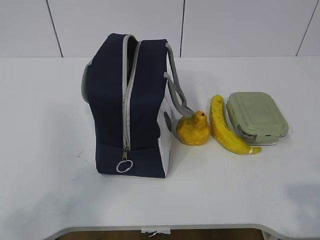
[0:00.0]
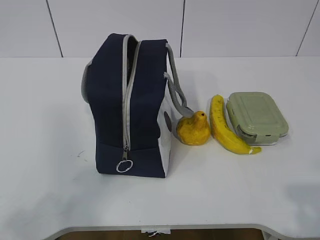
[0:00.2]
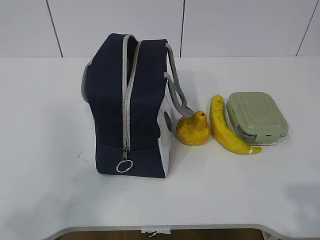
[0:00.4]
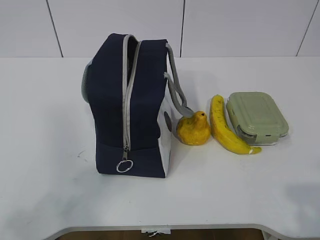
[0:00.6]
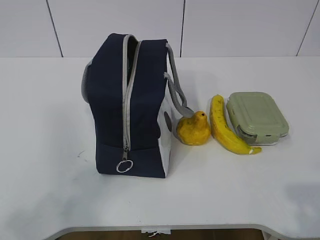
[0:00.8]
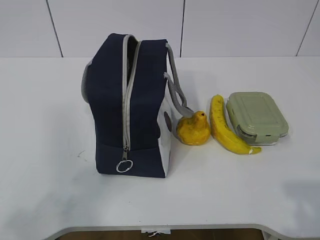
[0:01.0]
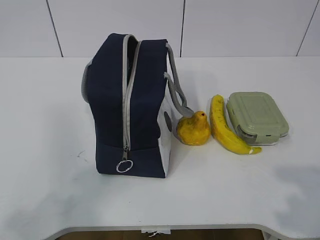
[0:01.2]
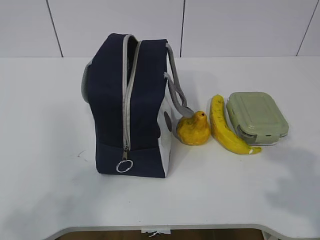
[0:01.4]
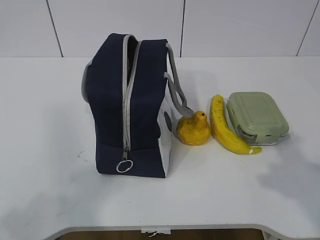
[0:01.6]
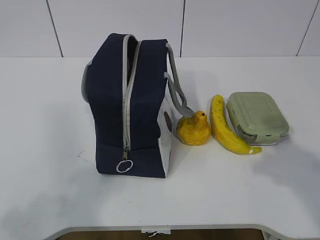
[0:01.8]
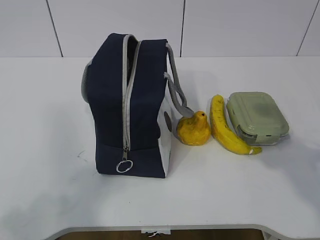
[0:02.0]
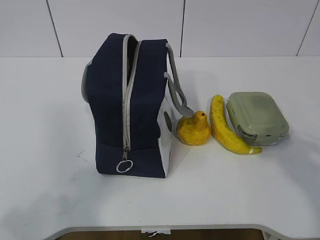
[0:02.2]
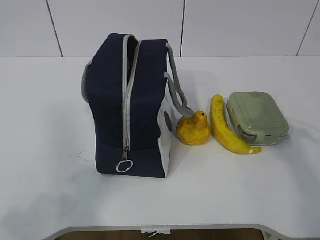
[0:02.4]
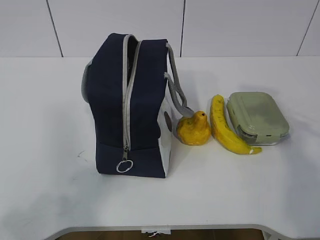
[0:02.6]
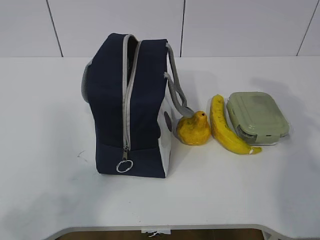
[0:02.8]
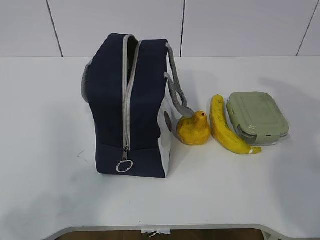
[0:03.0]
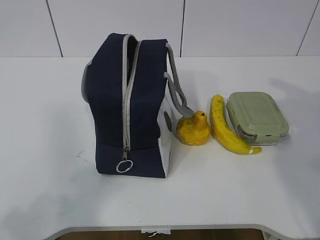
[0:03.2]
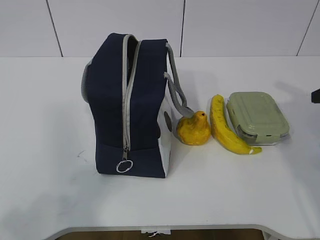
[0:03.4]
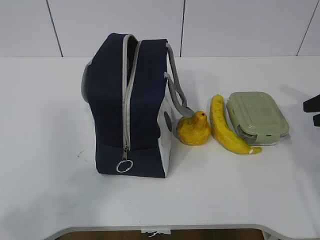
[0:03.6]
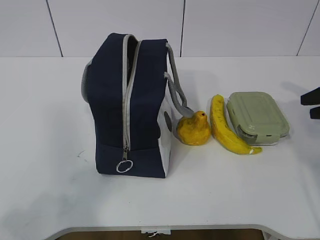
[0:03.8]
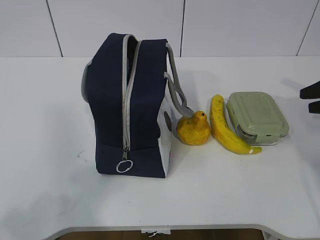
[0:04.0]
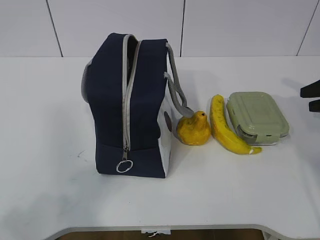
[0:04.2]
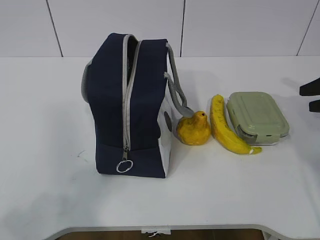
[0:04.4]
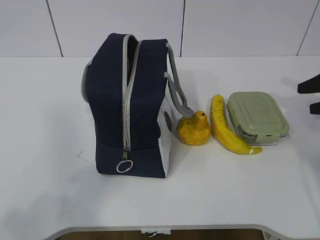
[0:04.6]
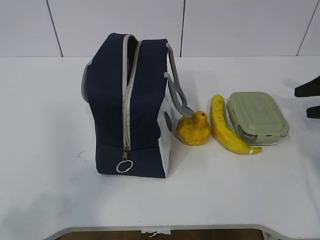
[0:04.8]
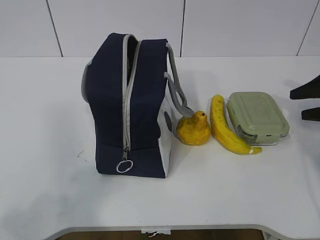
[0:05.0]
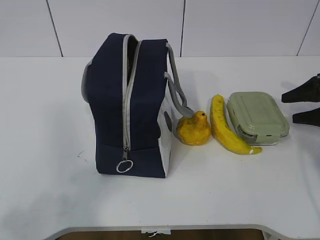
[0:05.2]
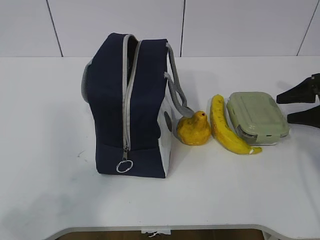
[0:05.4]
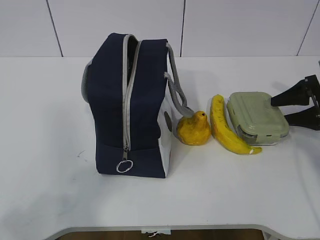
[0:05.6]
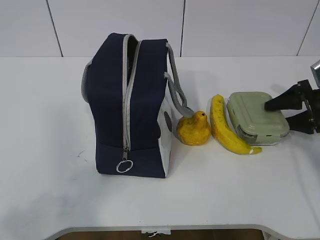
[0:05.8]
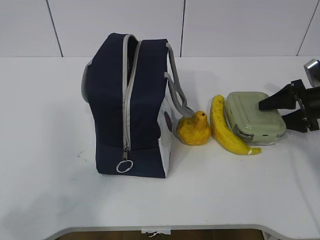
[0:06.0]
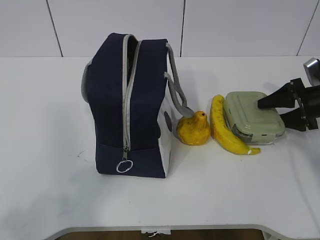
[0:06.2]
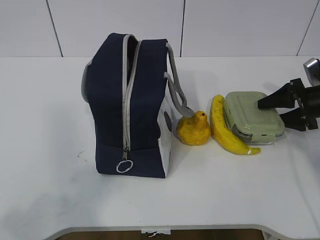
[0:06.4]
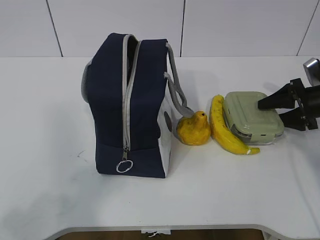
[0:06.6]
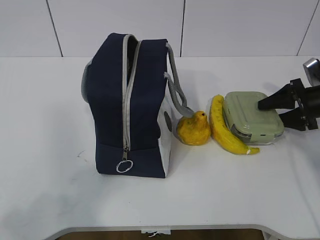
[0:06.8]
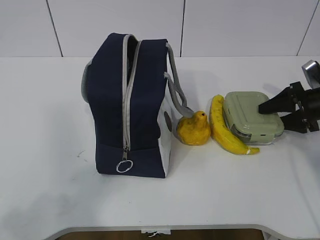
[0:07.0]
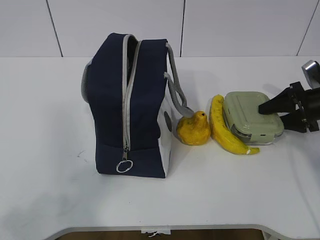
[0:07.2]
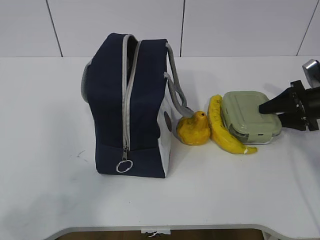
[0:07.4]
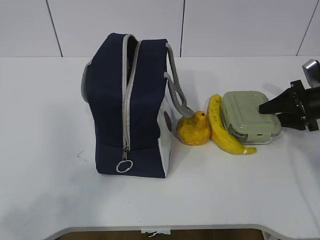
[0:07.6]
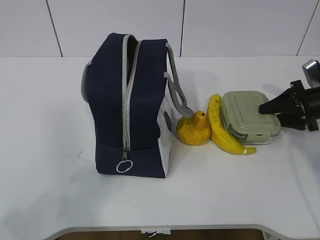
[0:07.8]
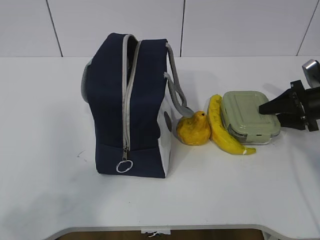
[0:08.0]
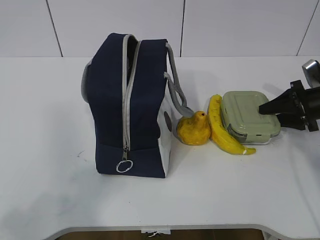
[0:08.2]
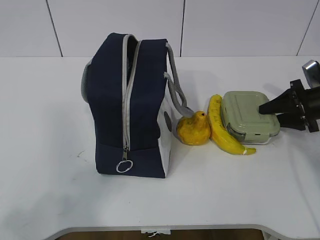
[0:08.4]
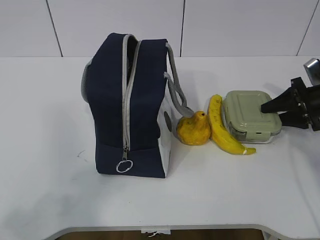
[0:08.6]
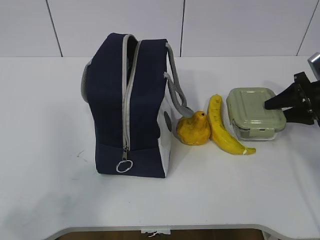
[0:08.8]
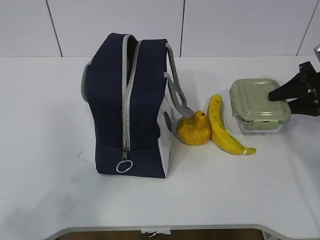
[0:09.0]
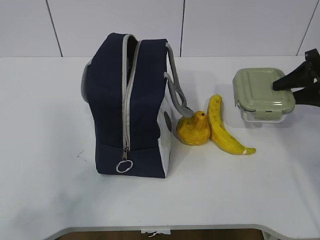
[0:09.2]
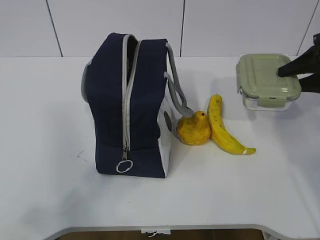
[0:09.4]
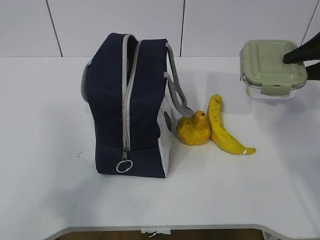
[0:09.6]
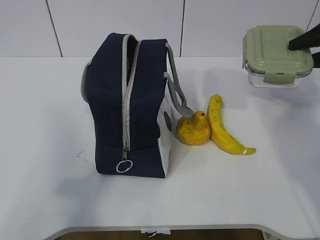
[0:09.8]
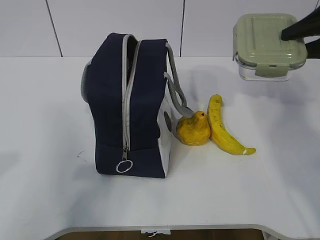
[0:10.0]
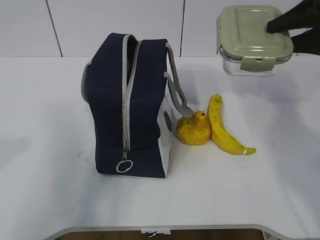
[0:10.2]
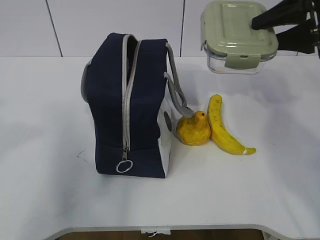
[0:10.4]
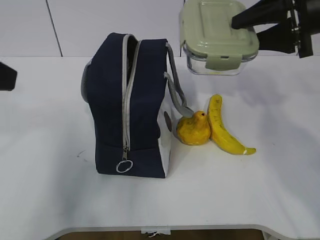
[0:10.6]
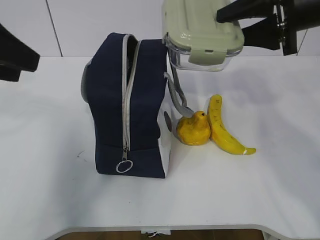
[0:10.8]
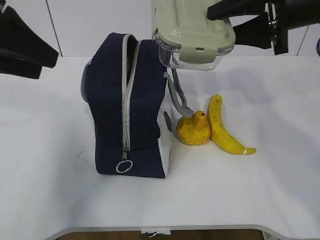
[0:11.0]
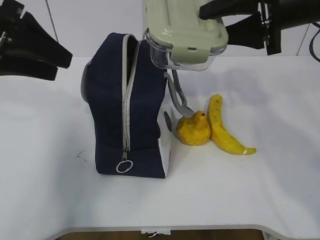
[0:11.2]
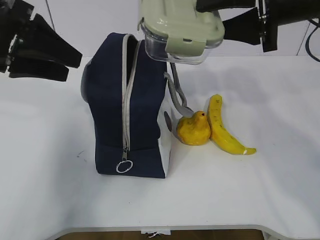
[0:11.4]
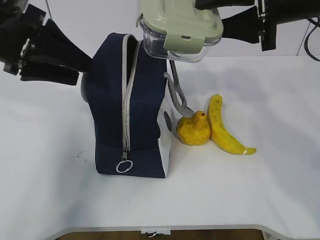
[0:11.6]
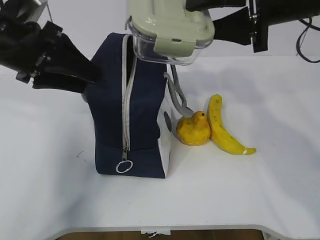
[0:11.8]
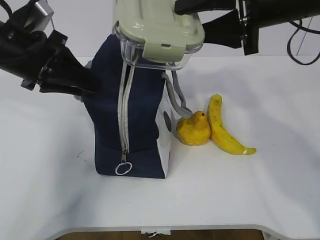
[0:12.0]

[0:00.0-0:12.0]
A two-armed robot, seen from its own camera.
Step, 0:00.0 to 0:07.4: Grasp the box with the right gripper.
0:01.6 to 0:03.0: The right gripper shifts roughly 20 cm forward and to the right.
0:03.0 to 0:04.4: The right gripper goes roughly 15 cm downward, forward and to the right.
0:04.4 to 0:06.0: The right gripper is displaced downward by roughly 5 cm.
0:06.0 to 0:07.6: Both grippers stay put.
0:07.6 to 0:09.0: The right gripper changes place by some 5 cm.
0:09.0 to 0:10.4: The right gripper heads upward and to the left, covering approximately 15 cm, while the left gripper travels forward and upward by some 15 cm, and opens up.
0:10.4 to 0:12.0: The left gripper travels forward and downward by approximately 20 cm, and closes its fingers. Meanwhile the right gripper shifts approximately 10 cm to the left.

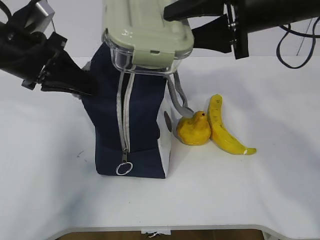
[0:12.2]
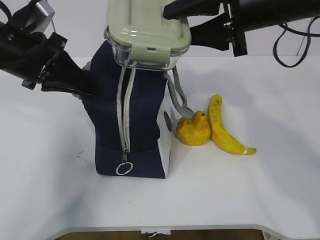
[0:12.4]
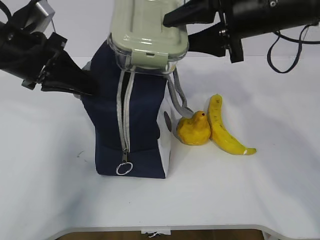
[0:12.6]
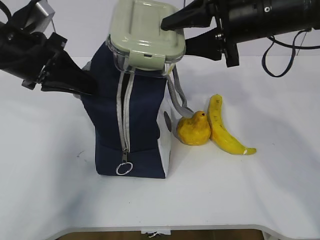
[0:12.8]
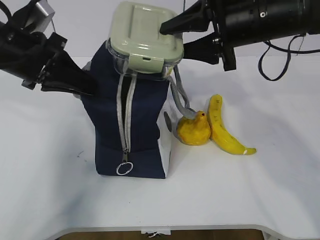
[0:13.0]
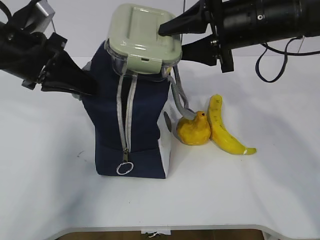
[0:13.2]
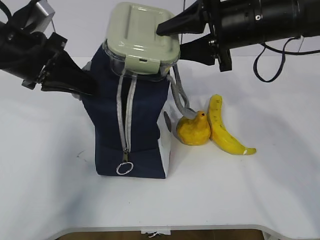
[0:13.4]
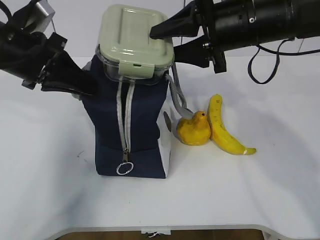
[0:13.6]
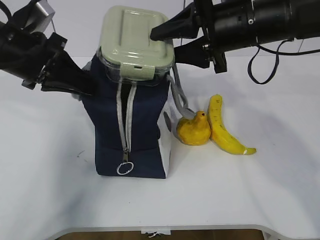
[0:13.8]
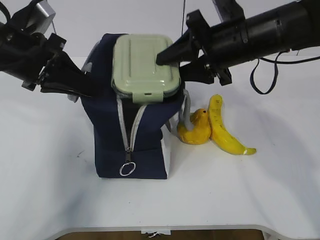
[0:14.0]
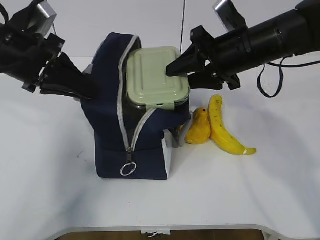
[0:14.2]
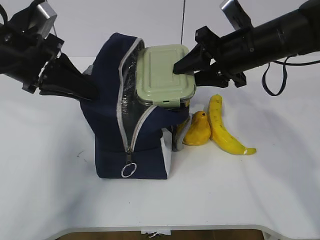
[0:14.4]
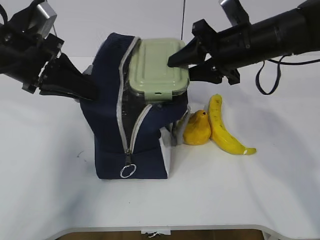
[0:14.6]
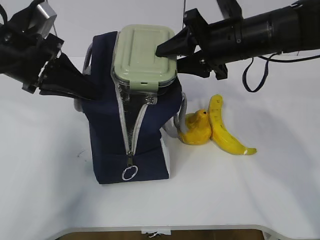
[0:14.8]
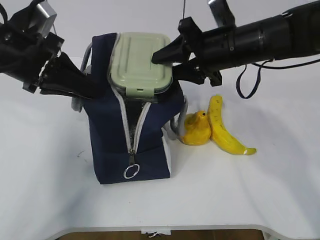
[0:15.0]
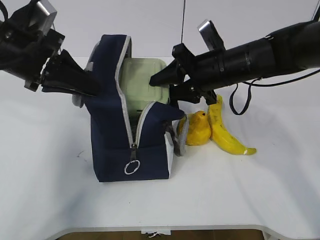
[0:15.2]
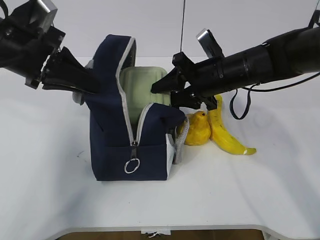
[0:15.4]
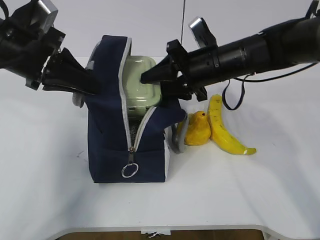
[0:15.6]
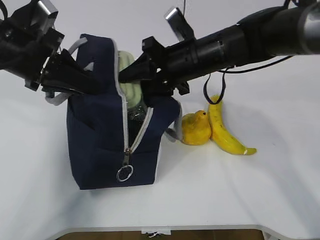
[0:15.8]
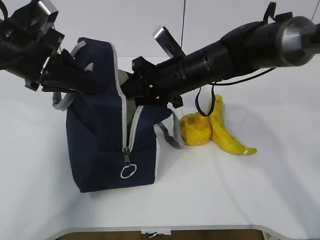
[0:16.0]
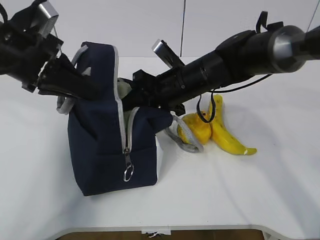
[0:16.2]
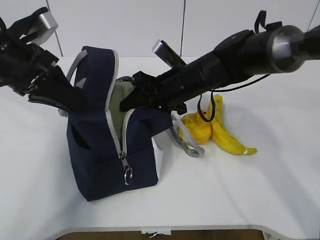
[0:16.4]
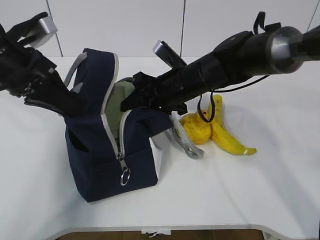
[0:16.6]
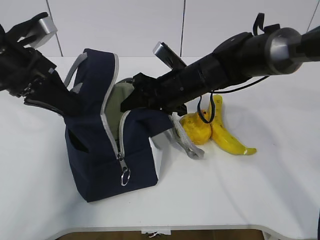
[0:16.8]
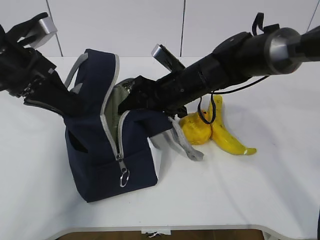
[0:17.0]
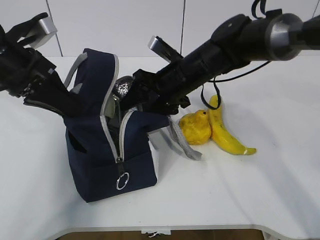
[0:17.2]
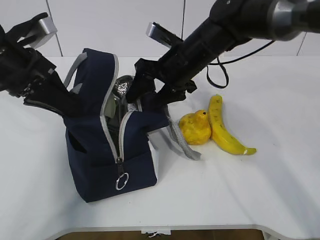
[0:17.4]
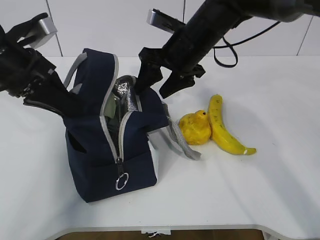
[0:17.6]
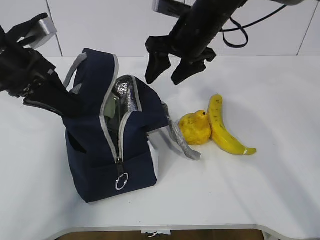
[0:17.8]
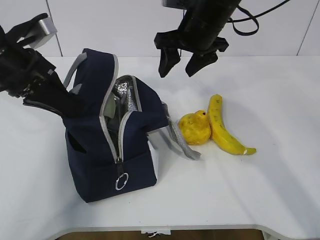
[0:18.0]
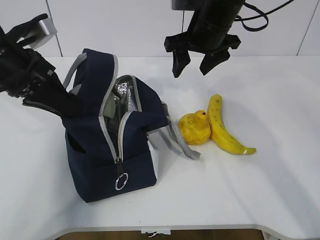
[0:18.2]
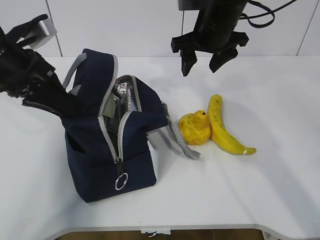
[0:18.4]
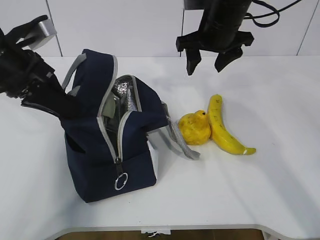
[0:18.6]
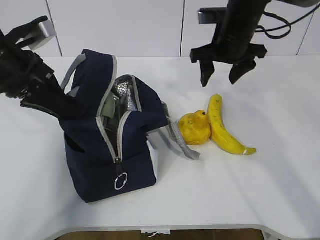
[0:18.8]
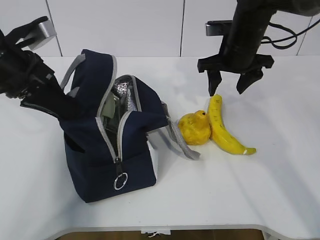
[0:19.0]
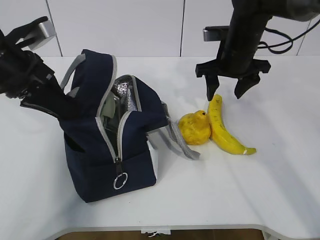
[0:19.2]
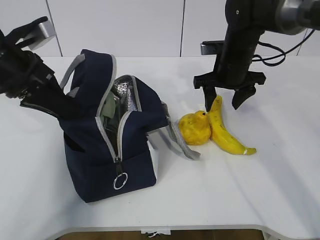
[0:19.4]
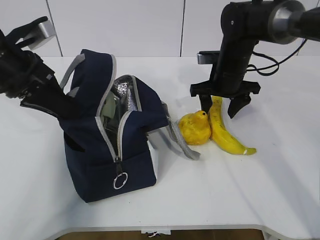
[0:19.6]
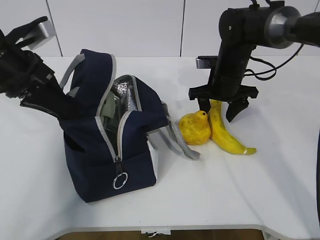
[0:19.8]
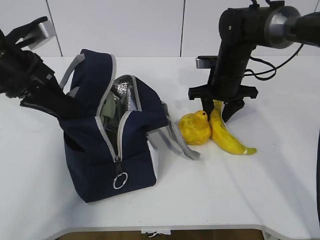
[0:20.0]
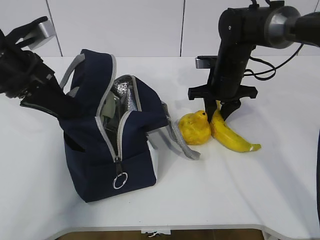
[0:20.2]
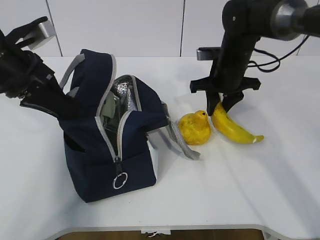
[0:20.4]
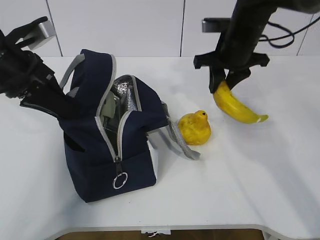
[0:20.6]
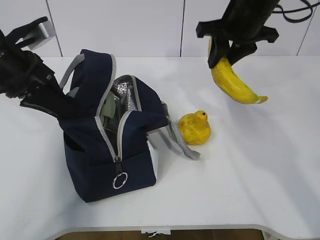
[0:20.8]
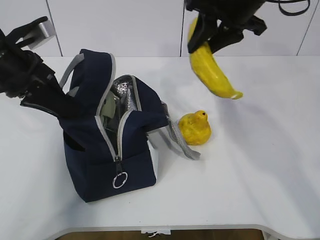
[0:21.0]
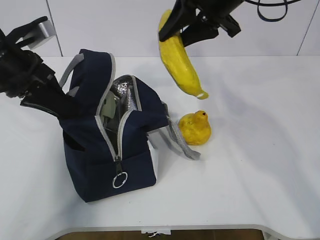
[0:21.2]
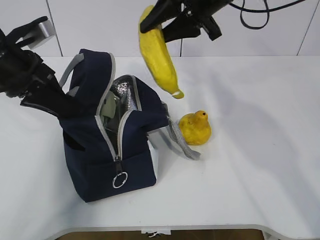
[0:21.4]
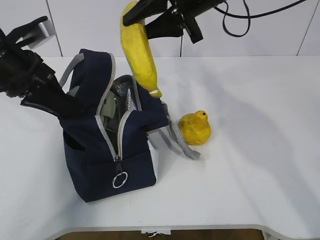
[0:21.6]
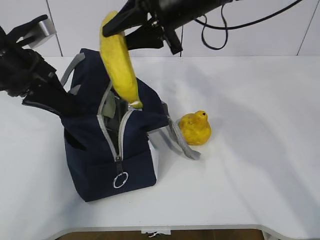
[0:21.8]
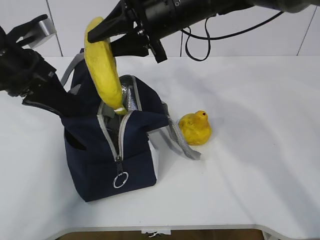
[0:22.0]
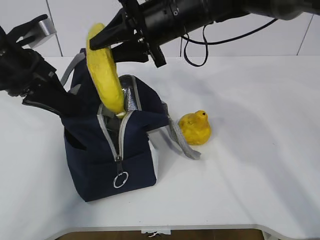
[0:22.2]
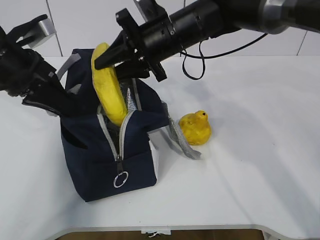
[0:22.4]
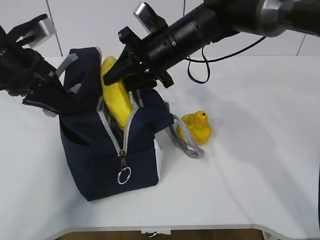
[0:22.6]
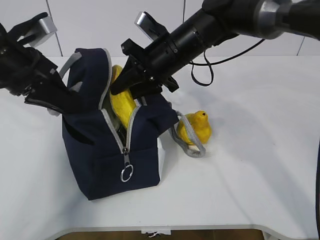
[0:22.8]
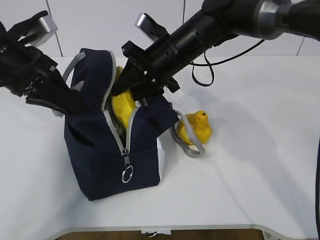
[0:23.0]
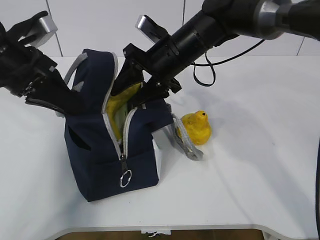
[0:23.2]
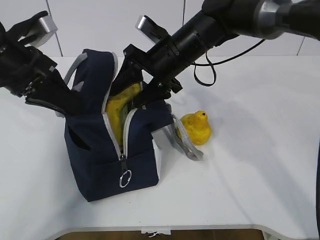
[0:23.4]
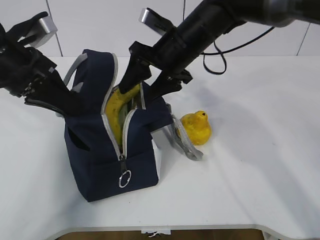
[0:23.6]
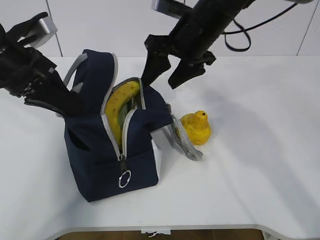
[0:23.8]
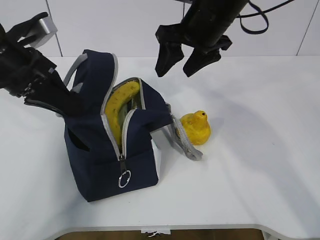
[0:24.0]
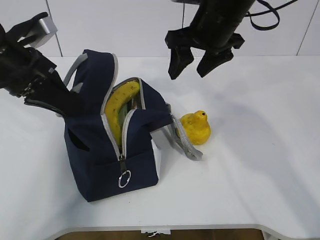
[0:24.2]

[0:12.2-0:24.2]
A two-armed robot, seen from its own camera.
Step, 0:12.2 to 0:17.6: Place the box into the package with the right gripper.
Step, 0:17.8 to 0:20.0: Grasp the banana with the right gripper.
Step, 0:20.2 to 0:23.6: Place the banana into the package with the right gripper.
0:12.2 to 0:13.8: The right gripper changes place by about 5 cm.
0:13.8 to 0:15.2: The right gripper moves downward, approximately 10 cm.
0:15.2 to 0:16.6: The right gripper goes about 5 cm to the left.
0:16.6 to 0:18.2: The right gripper travels upward by some 10 cm.
0:18.2 to 0:19.8: The right gripper is displaced downward by about 10 cm.
0:19.8 to 0:21.2: The right gripper moves upward, roughly 20 cm, and closes up.
0:21.2 to 0:22.6: The right gripper heads downward and to the left, covering some 15 cm.
0:22.6 to 0:24.2: The right gripper shifts roughly 5 cm to the right, and opens up.
